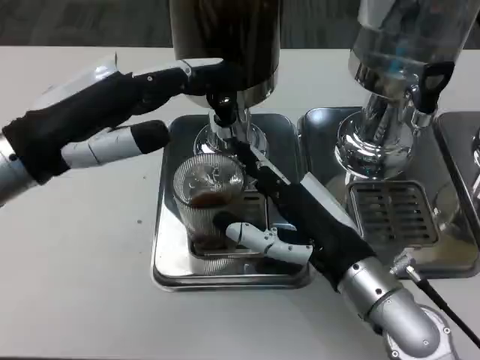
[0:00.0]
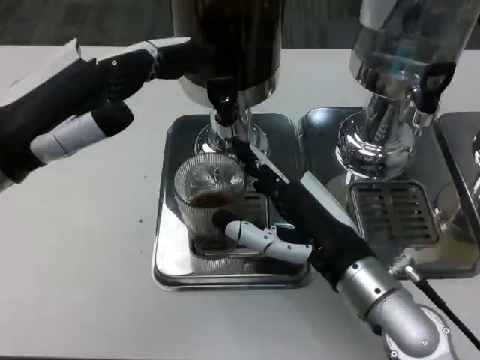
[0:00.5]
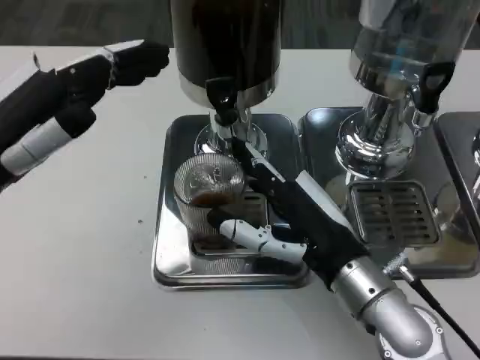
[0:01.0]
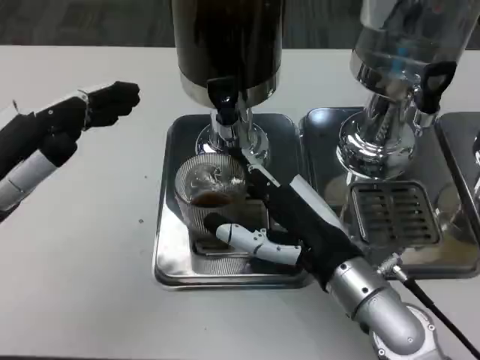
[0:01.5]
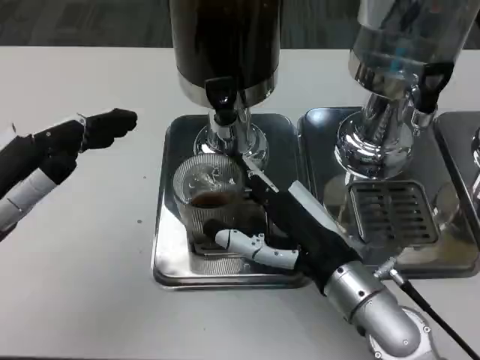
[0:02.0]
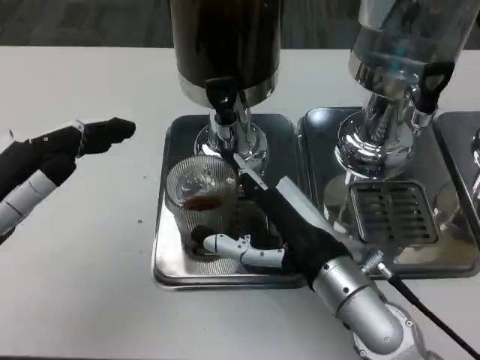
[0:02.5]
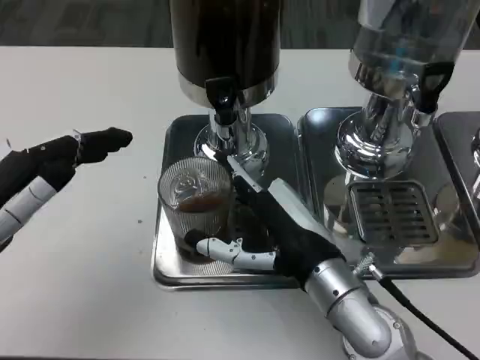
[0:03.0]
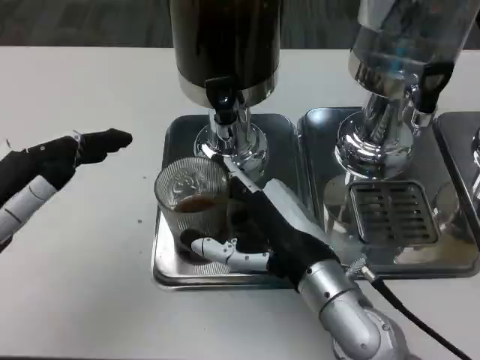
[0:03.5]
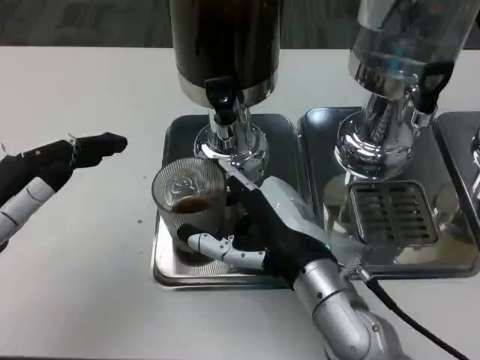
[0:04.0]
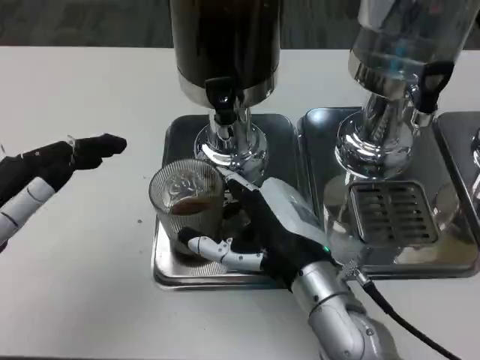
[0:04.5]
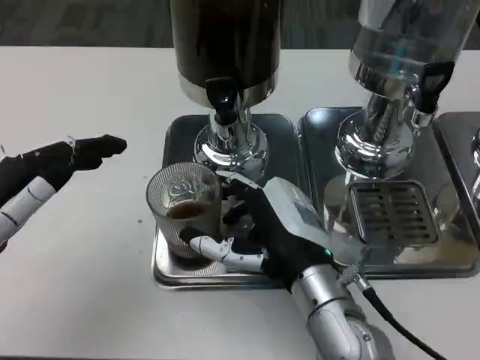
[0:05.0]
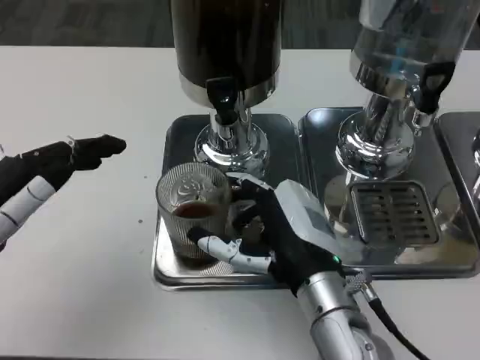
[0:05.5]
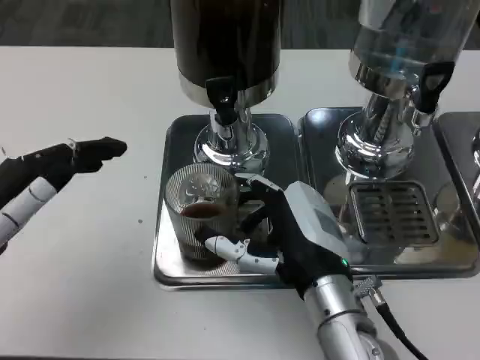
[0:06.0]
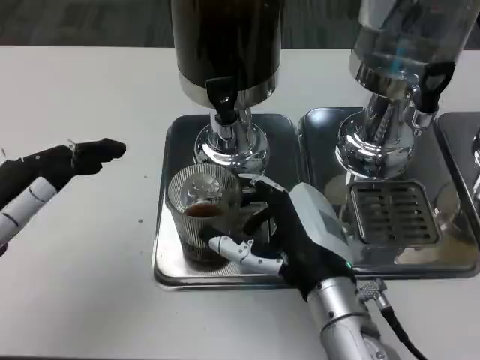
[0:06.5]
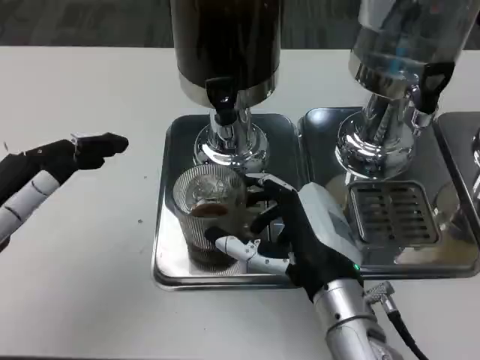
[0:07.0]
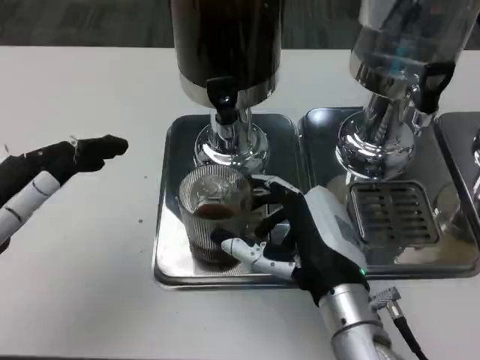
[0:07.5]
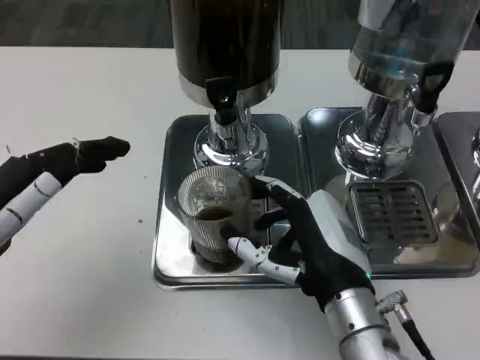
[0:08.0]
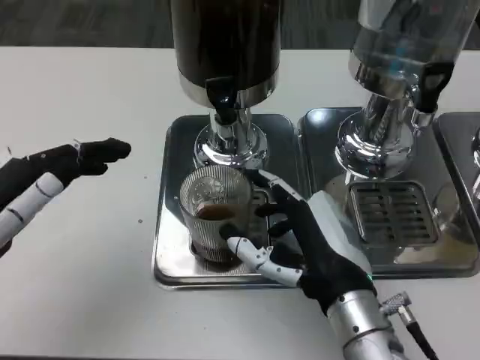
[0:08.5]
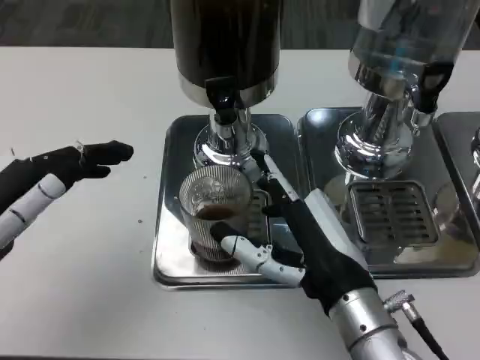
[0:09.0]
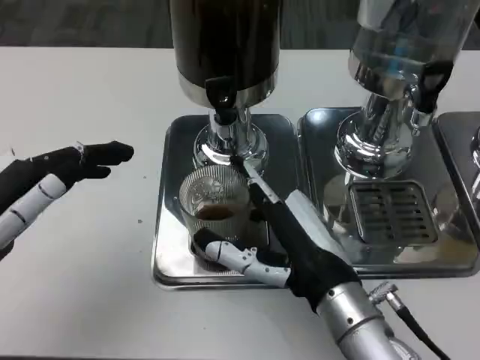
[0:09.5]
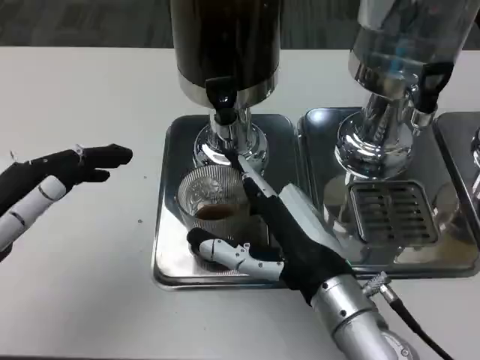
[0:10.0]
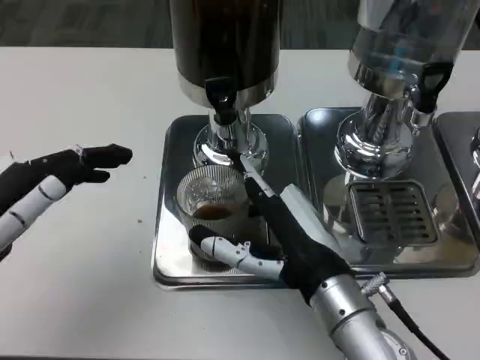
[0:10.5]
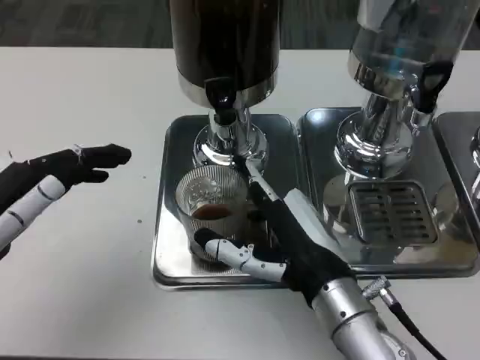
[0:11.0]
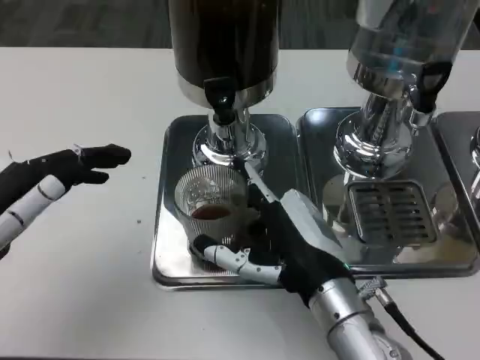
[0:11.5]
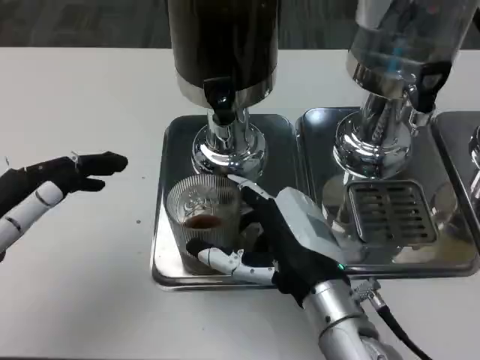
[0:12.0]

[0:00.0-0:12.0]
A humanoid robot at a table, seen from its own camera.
Task of the whole recording: Grasp the cup under the faucet to collect the drink, then remove the cup.
0:00.0 to 0:02.0: The left hand heads downward, backward and to the left, covering some 10 cm.
0:02.0 to 0:04.0: There are only small adjustments of the hands.
0:04.0 to 0:12.0: There are only small adjustments of the hands.

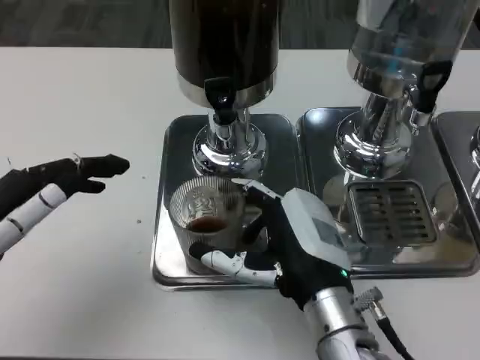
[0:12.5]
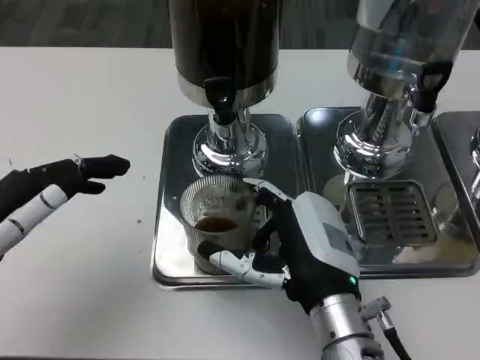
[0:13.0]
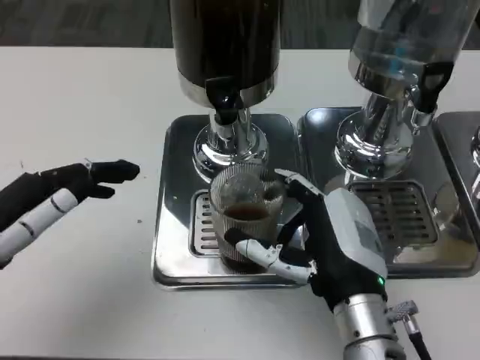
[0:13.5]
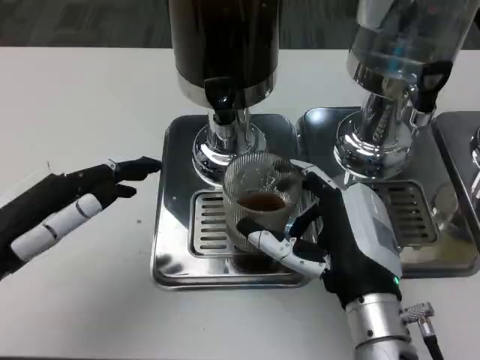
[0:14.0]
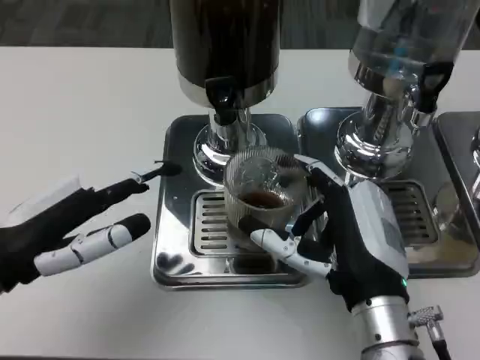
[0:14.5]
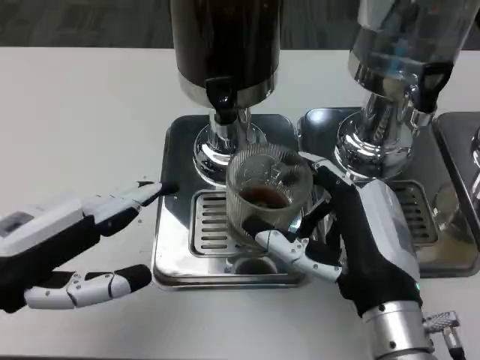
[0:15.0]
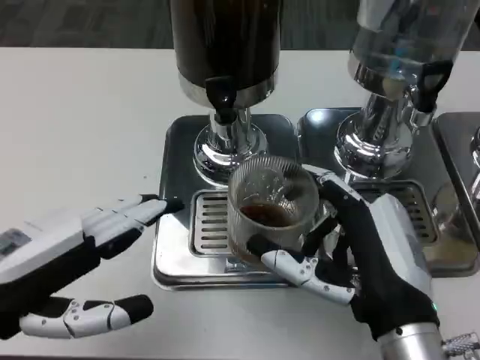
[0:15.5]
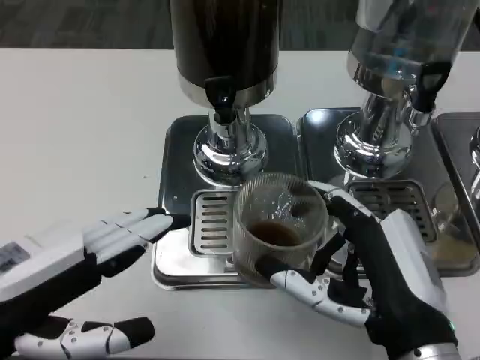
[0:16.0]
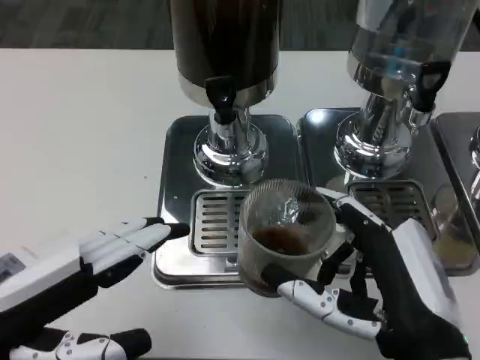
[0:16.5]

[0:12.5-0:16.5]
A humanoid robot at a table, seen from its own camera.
Task of the whole recording: Grasp the cup under the faucet to collect the drink, then remove the cup.
0:14.5 to 0:16.5: The two hands go some 5 cm backward.
